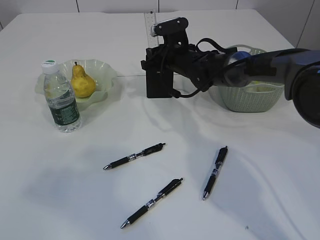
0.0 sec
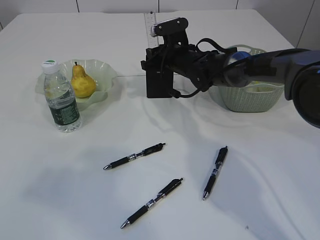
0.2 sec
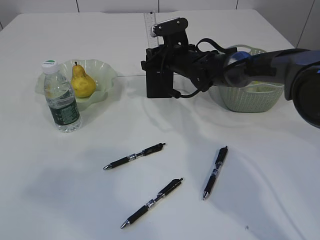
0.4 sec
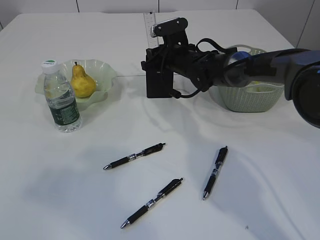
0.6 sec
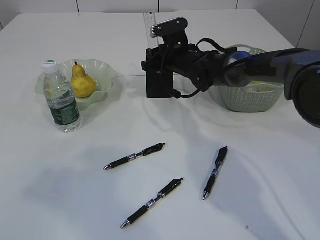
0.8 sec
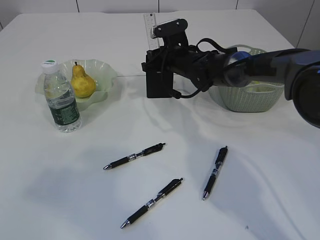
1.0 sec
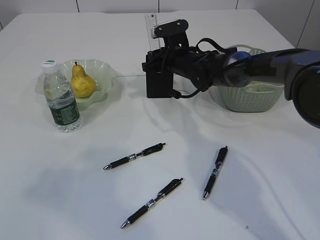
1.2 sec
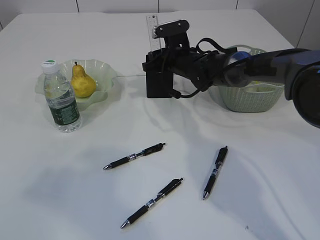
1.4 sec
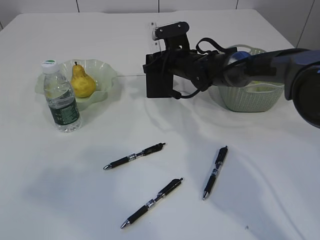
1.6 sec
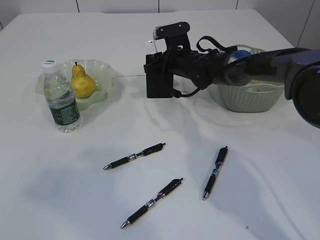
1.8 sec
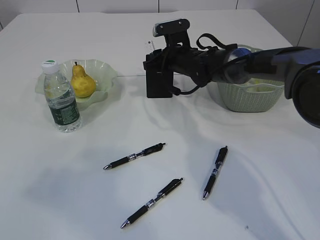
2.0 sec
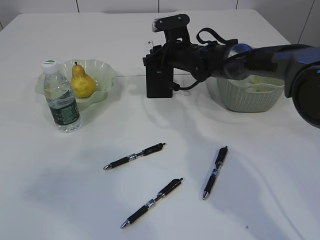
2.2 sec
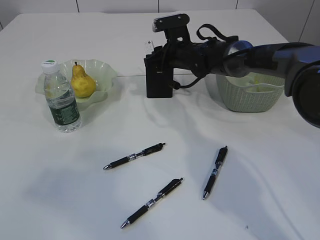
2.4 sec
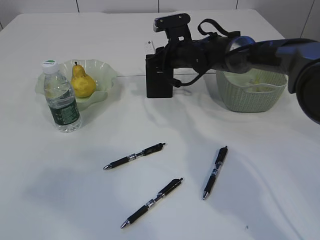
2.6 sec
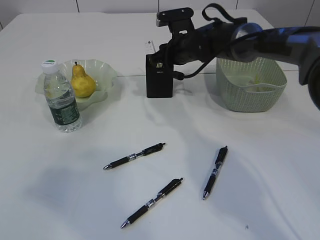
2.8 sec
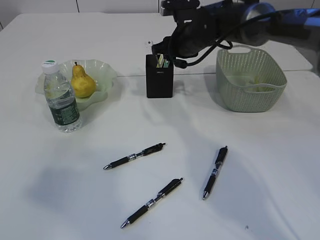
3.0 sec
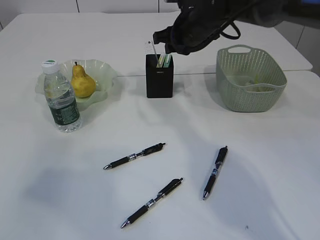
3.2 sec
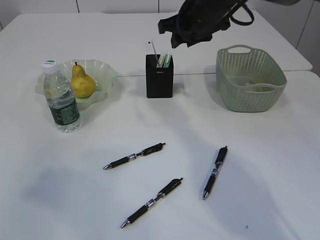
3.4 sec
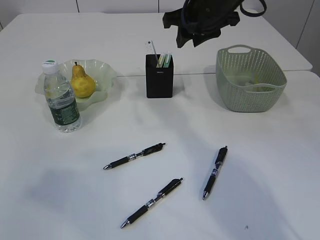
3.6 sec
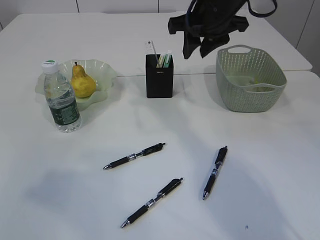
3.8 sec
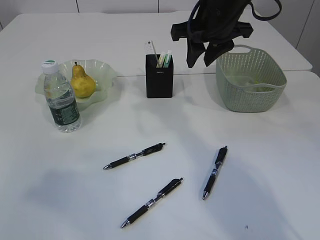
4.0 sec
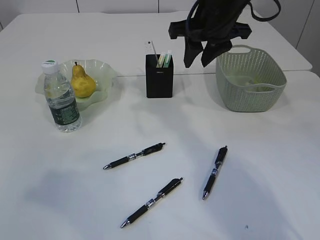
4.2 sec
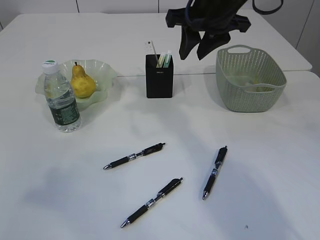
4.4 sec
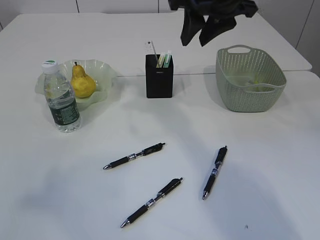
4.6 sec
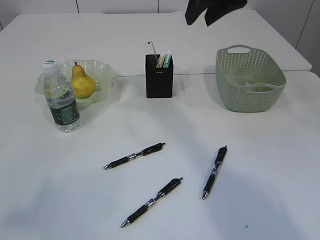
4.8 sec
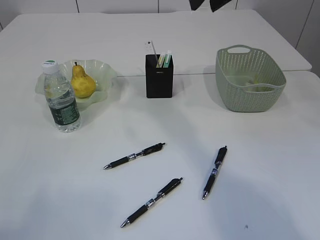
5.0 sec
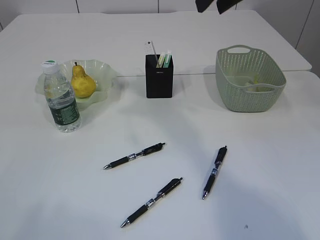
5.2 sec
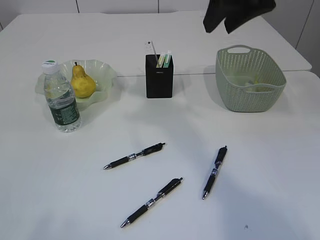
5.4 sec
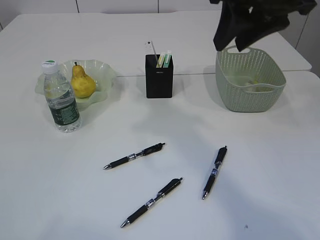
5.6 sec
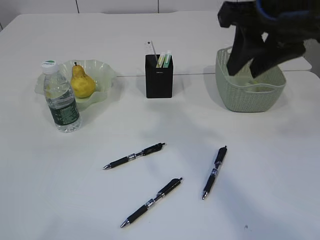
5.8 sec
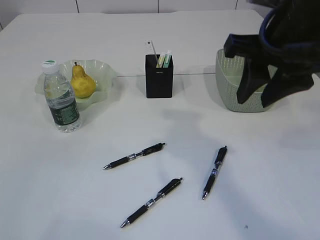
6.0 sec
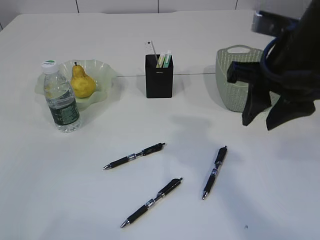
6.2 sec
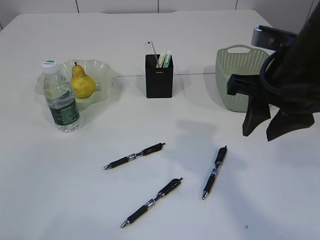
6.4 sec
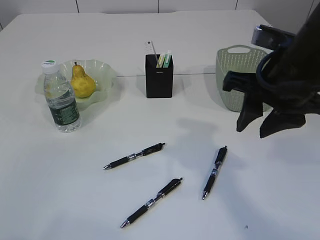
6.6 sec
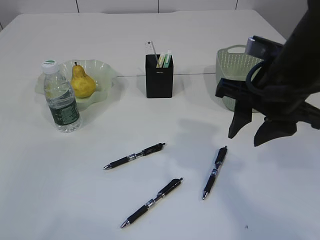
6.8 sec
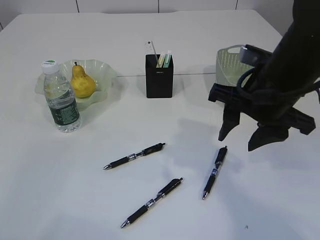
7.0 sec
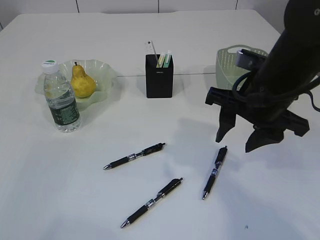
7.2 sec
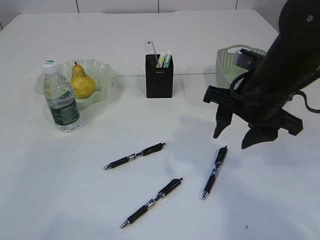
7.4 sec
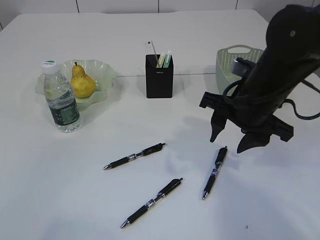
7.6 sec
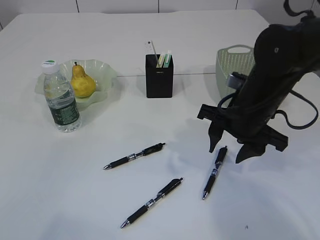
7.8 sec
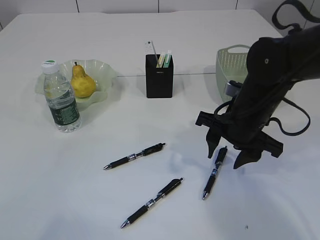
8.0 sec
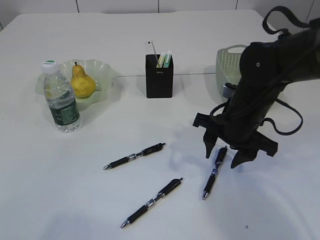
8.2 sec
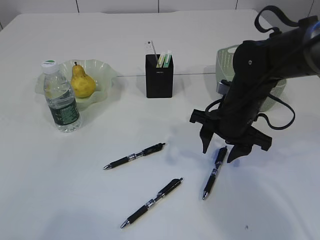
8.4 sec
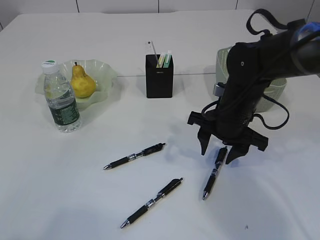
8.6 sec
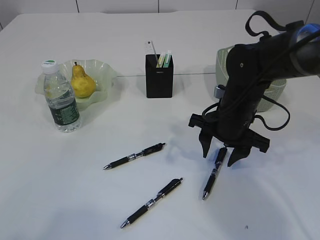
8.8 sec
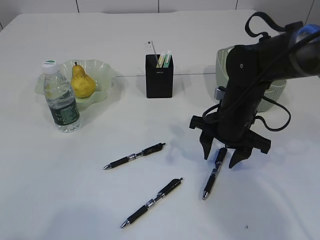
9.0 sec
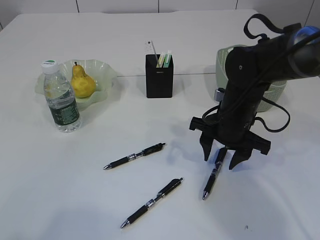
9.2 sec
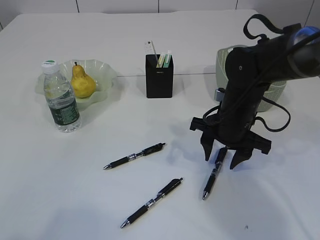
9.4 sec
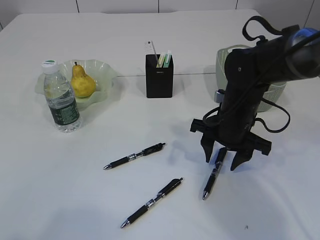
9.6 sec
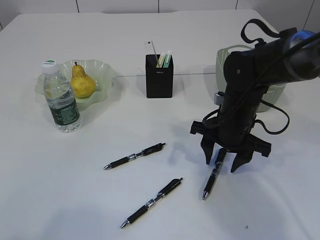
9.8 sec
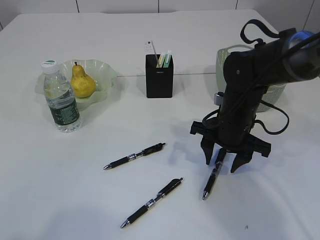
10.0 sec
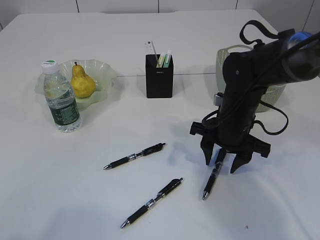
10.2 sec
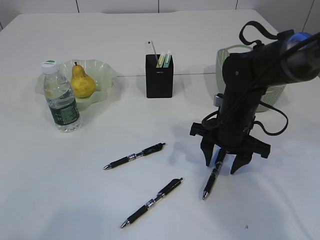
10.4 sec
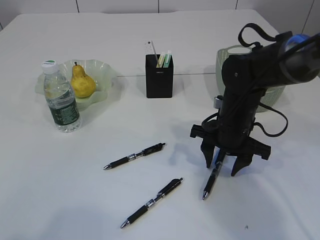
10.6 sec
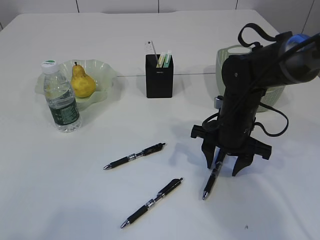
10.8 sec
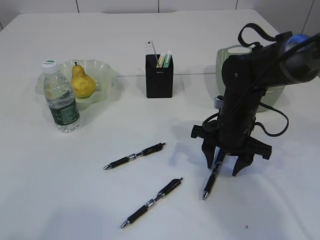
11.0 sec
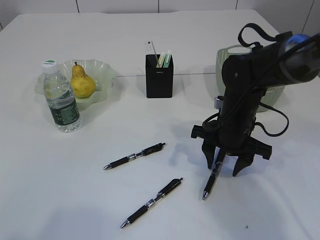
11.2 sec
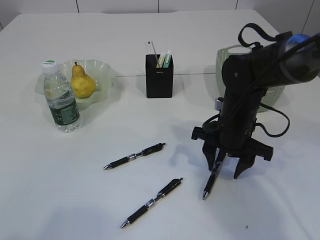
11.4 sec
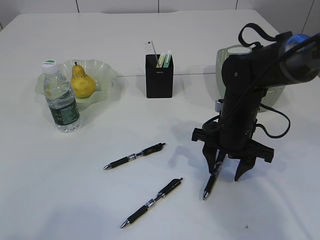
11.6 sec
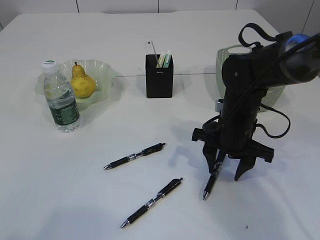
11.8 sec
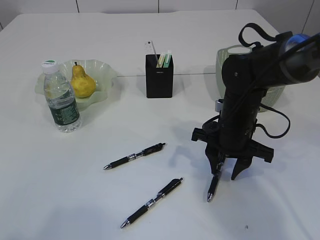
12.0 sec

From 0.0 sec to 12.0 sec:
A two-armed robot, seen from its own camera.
Step, from 0.0 sec to 3.4 sec: Place the ruler into the pen holder.
From 0.0 sec to 1.6 sec: Neither gripper changes place.
From 1.6 sec to 3.0 sec: The right gripper is displaced upward by approximately 5 cm.
From 3.0 sec to 4.4 sec: The right gripper heads upward and backward, covering roughly 15 cm.
From 4.4 sec to 6.0 sec: Both grippers move backward, approximately 10 cm.
From 6.0 sec to 7.6 sec: The right gripper shifts approximately 10 cm downward.
From 7.6 sec to 9.0 sec: The right gripper heads downward, covering some 5 cm.
From 9.0 sec to 10.4 sec: Both grippers stay about where they are.
From 10.4 sec to 12.0 sec: Both grippers stay put.

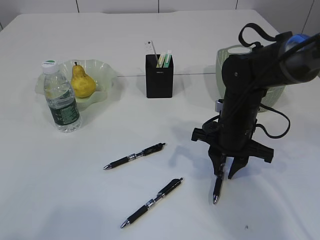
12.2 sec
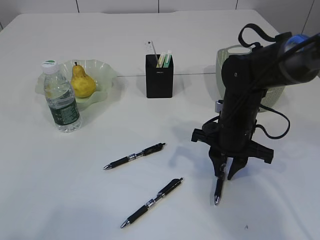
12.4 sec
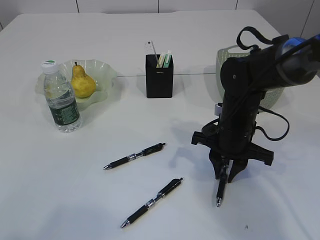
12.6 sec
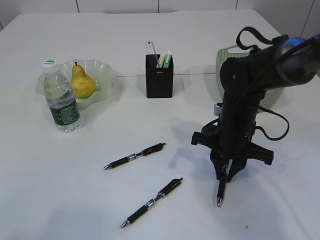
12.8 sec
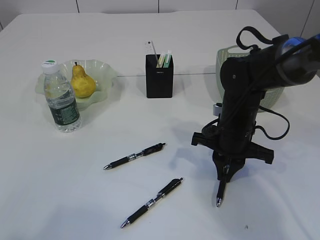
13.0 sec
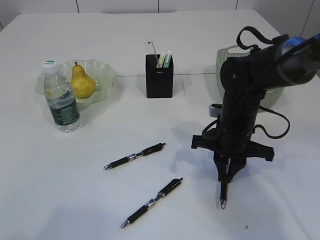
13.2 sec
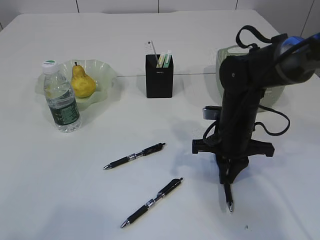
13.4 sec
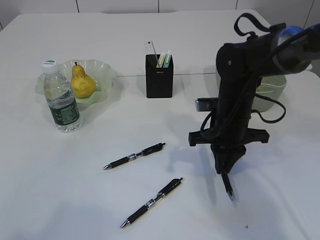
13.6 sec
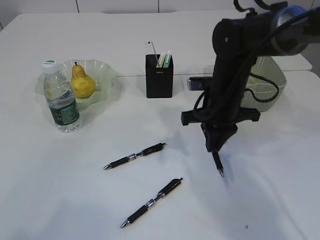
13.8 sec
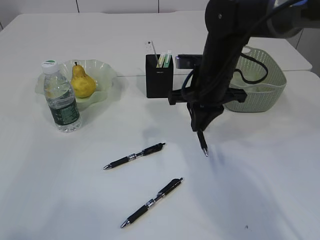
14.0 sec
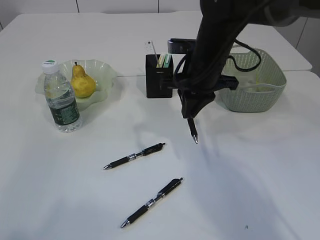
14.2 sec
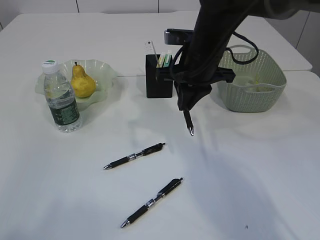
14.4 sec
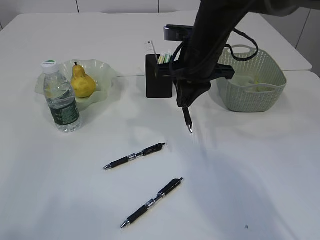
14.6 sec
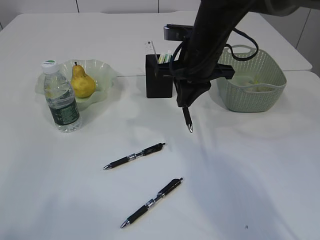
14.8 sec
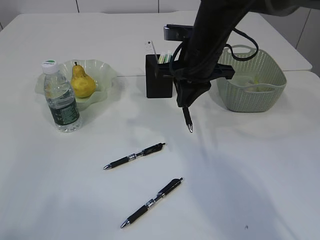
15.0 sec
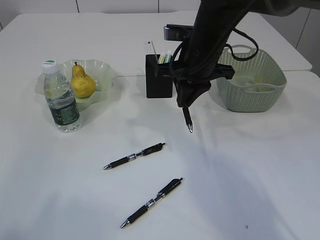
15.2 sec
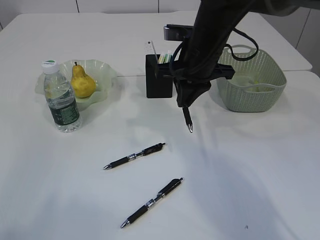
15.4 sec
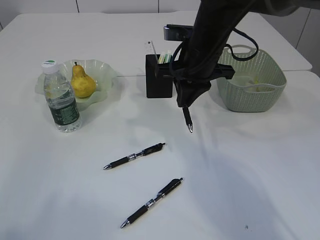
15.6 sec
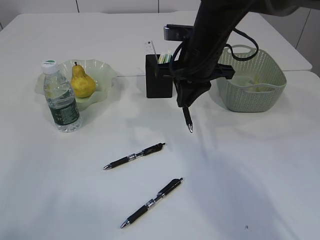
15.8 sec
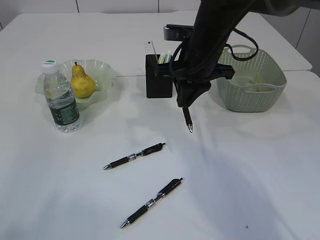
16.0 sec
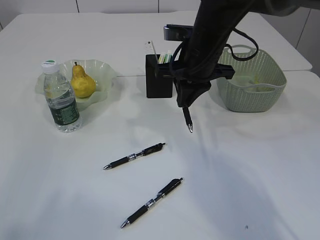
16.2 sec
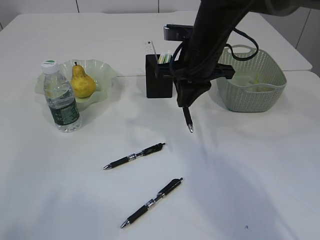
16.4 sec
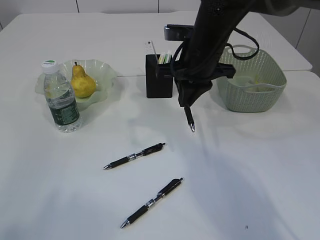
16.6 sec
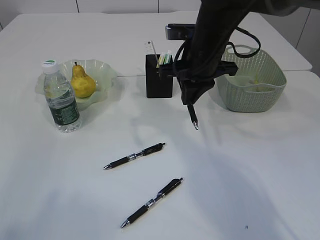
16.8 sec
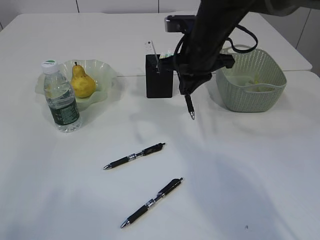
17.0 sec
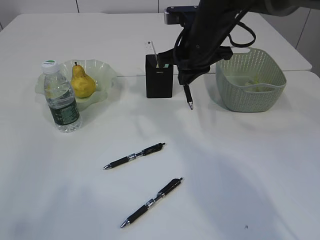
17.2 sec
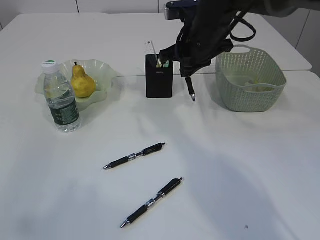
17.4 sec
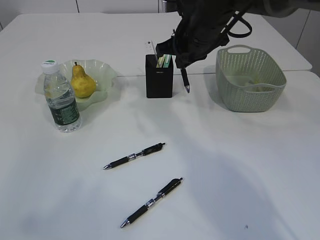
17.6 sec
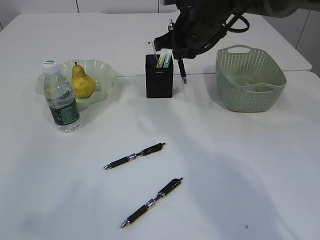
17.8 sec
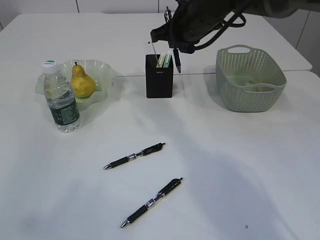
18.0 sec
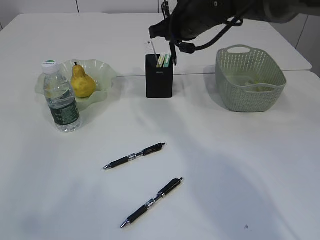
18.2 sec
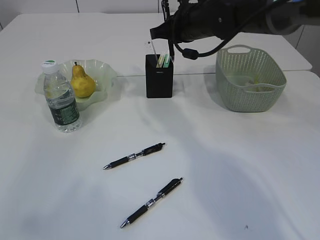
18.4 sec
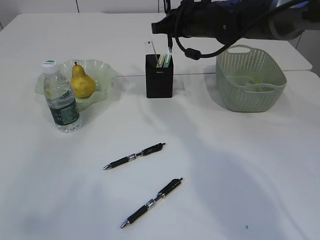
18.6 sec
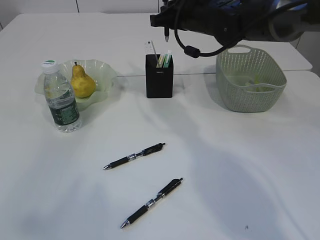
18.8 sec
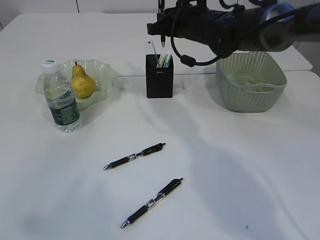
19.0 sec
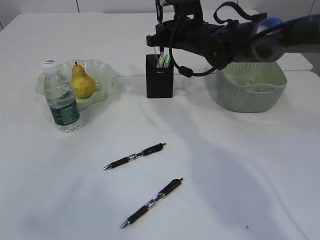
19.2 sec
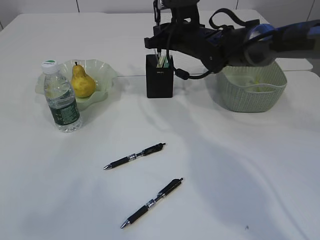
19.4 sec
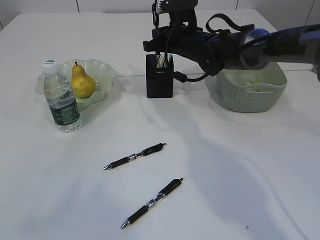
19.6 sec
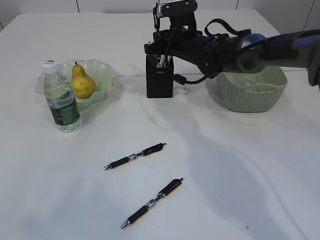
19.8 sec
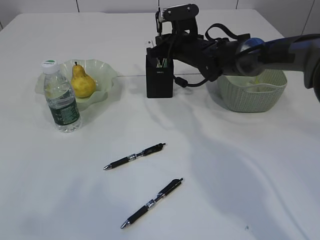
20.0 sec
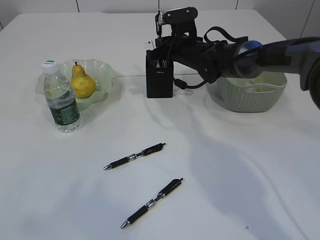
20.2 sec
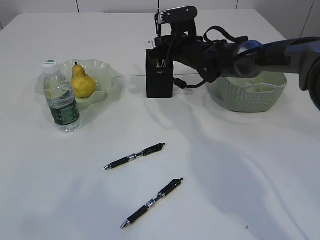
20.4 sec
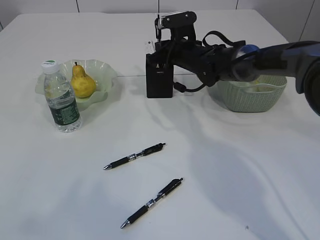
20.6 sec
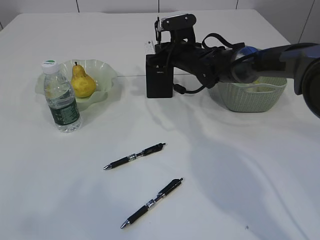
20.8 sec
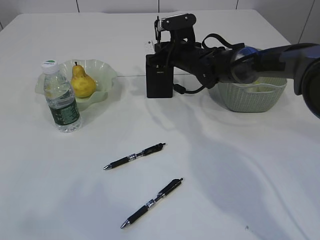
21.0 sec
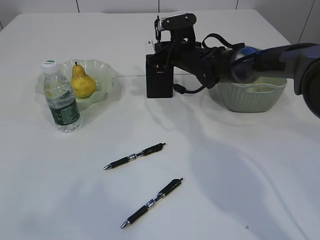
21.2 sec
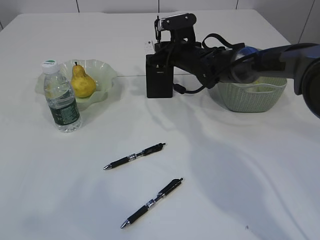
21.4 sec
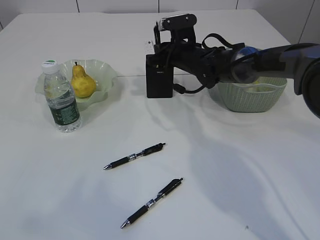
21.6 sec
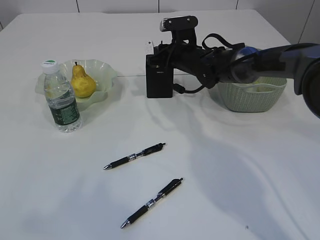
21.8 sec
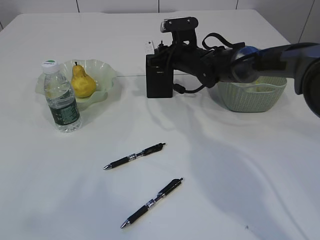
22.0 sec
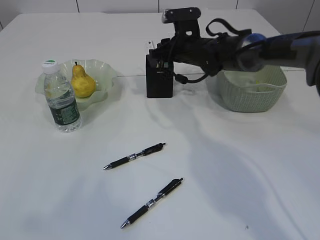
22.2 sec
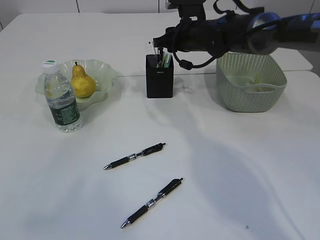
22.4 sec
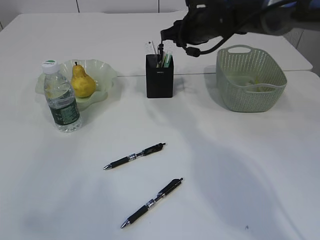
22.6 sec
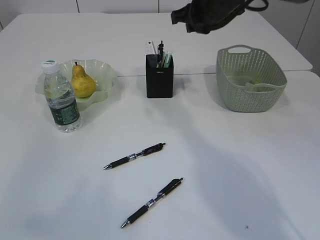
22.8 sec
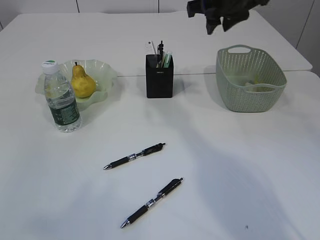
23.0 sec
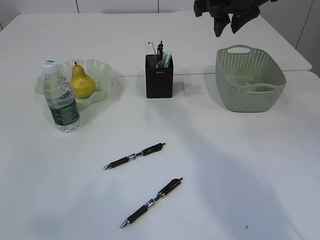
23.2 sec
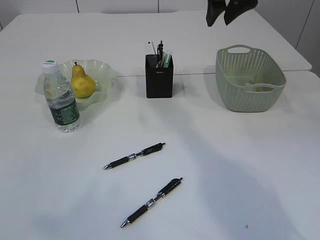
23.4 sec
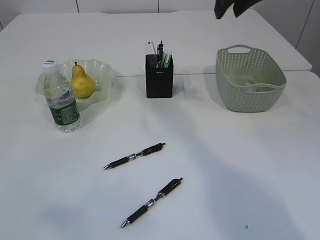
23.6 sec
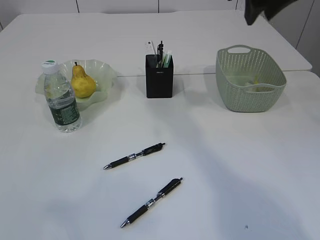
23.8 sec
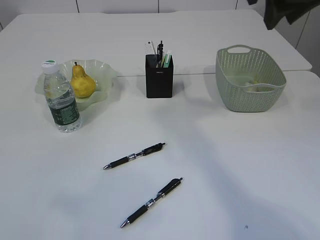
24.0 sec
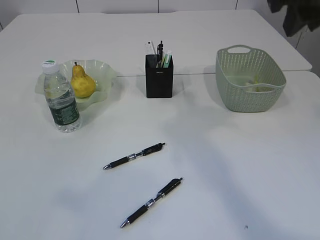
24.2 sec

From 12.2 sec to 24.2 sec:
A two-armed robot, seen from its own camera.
Step, from 14.0 sec to 22.6 sec: Place the pen into the pen holder.
From 12.2 sec to 13.8 sec: The right gripper closes.
From 13.8 sec to 15.2 sec: The right gripper moves upward, some 10 cm.
From 15.2 sec to 16.6 sec: Both grippers stay put.
From 16.6 sec to 18.2 sec: The right gripper is displaced forward by roughly 5 cm.
From 18.2 sec to 19.8 sec: The right gripper shifts roughly 10 cm downward and forward.
From 19.8 sec to 21.2 sec: The grippers make only small movements.
From 21.2 sec to 22.6 sec: The right gripper moves upward, about 10 cm, and opens its fingers.
From 22.6 sec to 24.2 sec: The left gripper changes place by roughly 5 cm. The right gripper is displaced backward, upward and to the right by roughly 25 cm.
